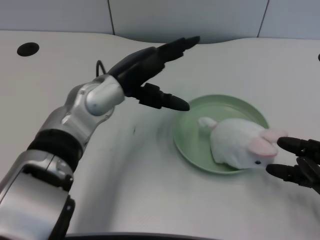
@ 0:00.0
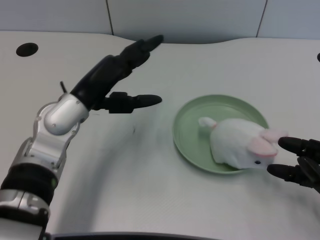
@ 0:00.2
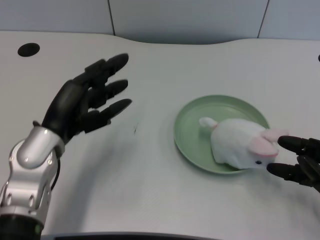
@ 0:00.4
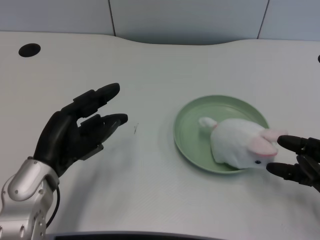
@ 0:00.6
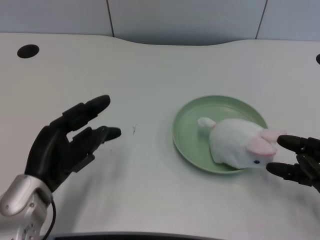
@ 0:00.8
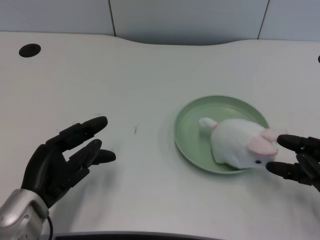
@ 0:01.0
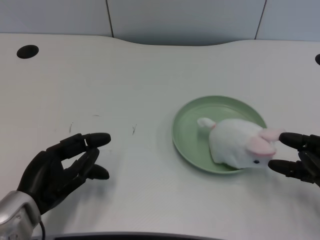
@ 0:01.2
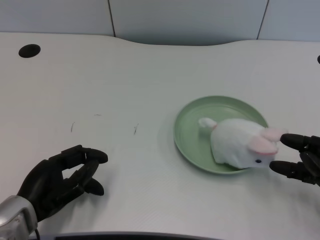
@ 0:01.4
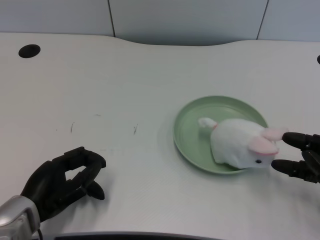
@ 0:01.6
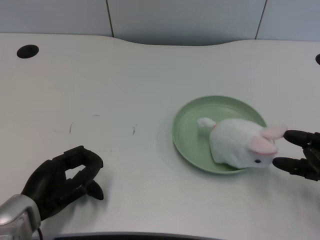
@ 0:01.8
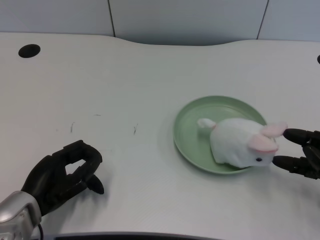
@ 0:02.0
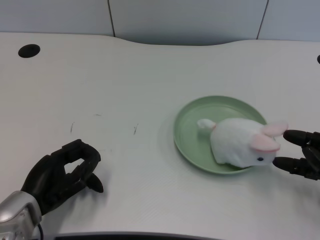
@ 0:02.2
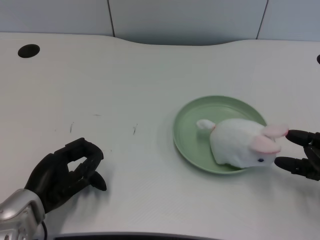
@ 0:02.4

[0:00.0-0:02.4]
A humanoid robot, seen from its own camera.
Task of the whole recording: pick up the rabbit doll from the table and place it on the plate.
0:00.0 to 0:01.2: The left hand heads to the left, backward and downward, covering about 20 cm.
0:01.2 to 0:02.4: The hands move only a little.
